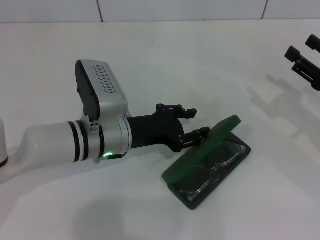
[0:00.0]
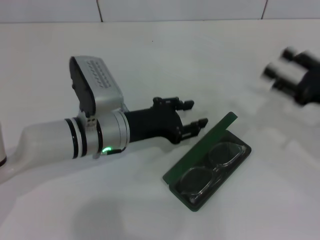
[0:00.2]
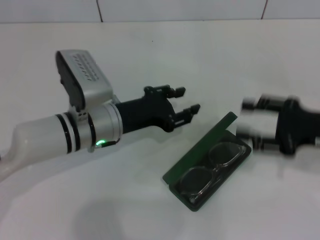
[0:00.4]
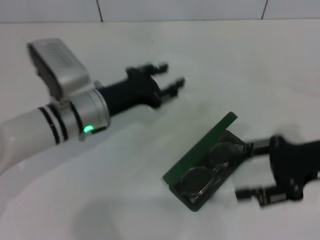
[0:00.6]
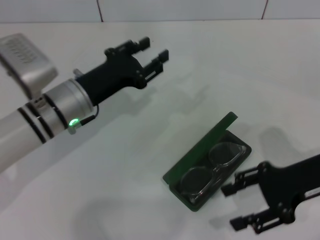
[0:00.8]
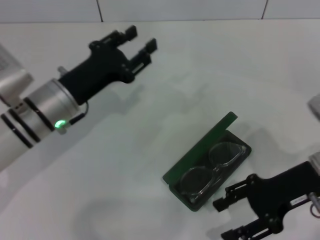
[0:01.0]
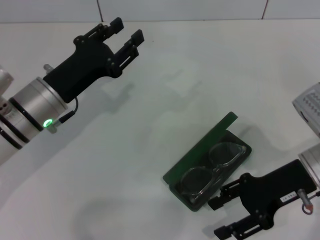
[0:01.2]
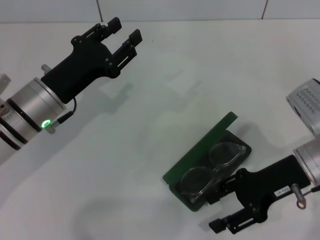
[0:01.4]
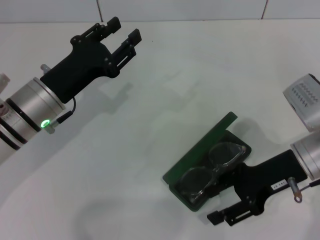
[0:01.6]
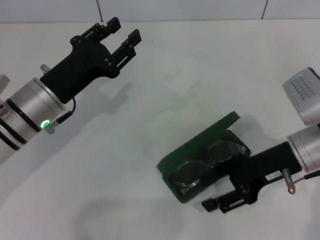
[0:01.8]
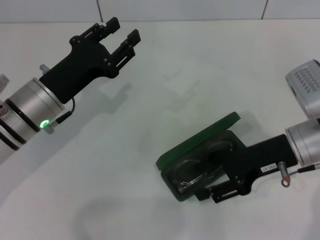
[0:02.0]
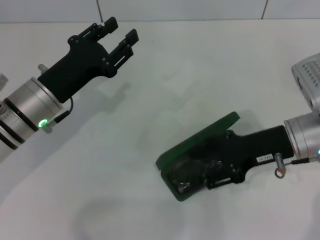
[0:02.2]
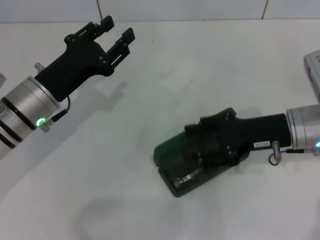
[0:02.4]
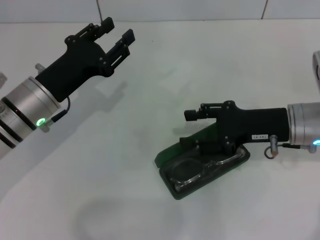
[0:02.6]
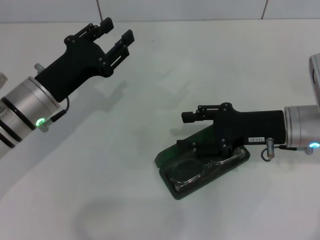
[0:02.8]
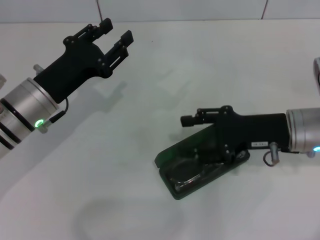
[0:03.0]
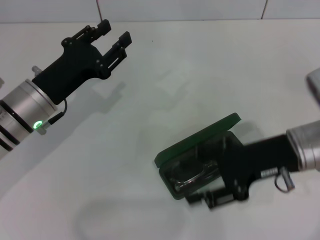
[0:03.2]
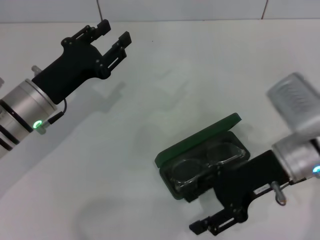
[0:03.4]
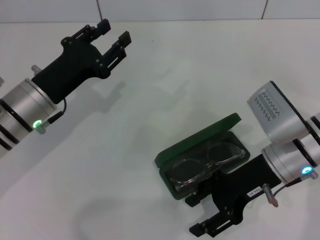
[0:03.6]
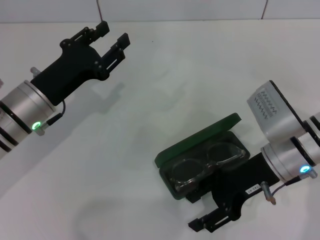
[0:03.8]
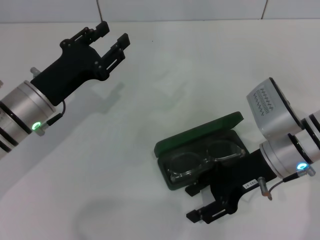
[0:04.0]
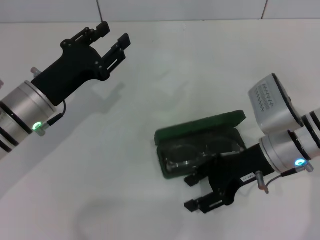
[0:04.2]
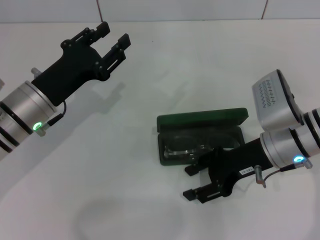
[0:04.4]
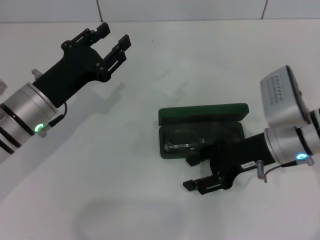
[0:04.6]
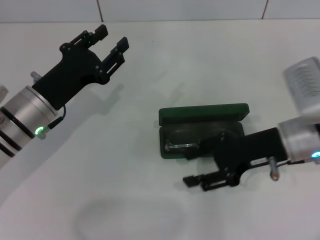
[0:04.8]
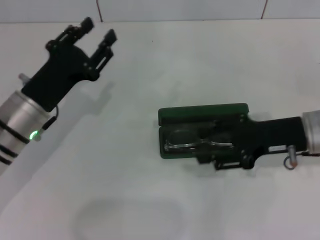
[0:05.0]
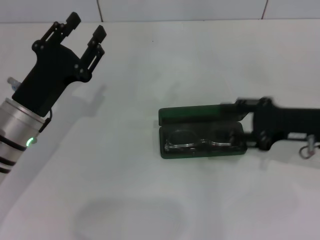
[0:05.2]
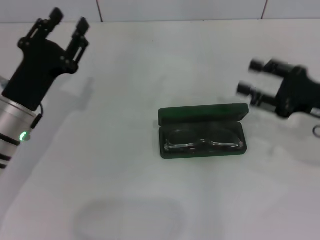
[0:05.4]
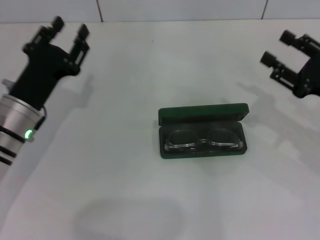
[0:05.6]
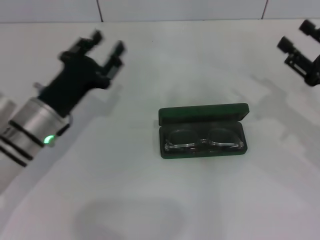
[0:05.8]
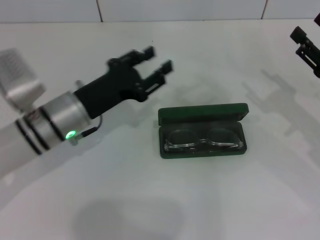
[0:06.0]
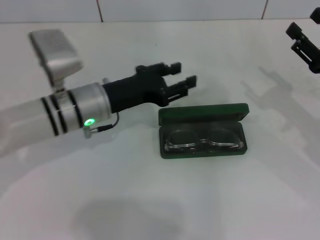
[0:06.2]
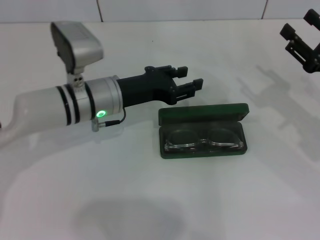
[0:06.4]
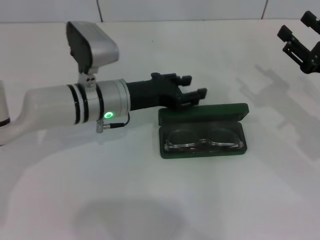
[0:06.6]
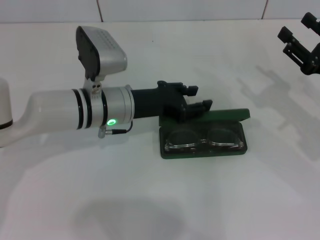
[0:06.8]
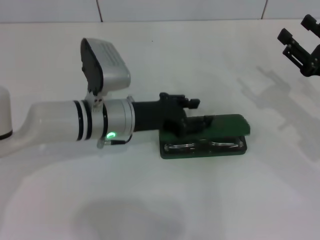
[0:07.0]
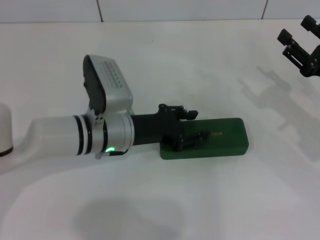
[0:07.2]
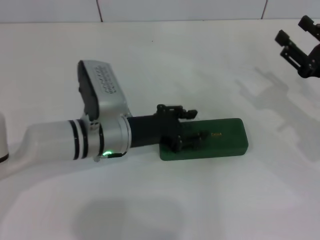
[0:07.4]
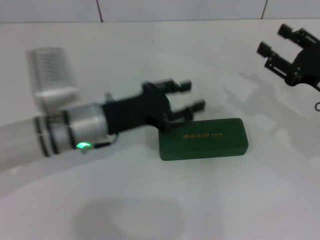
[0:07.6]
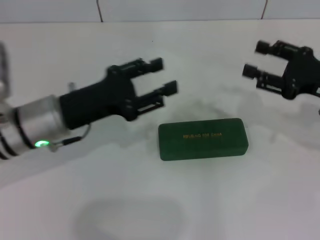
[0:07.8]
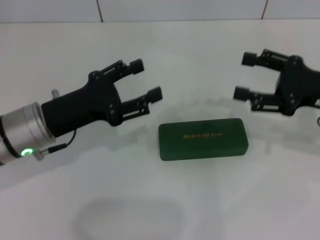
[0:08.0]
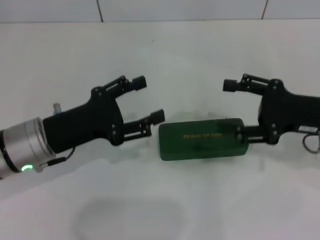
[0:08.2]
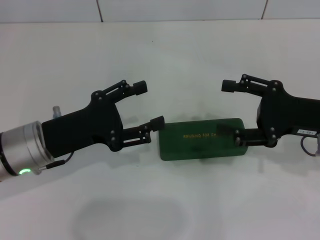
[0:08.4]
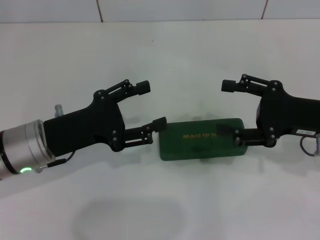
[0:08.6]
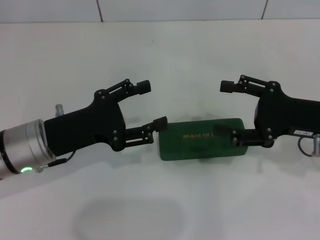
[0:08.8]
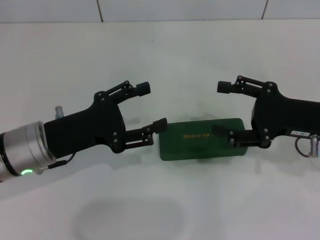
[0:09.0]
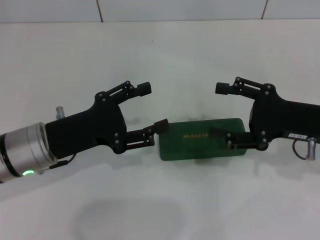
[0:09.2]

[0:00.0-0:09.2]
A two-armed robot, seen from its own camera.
Step, 0:00.0 to 0:07.0: Close the glasses case with your left hand.
0:00.0 to 0:01.6: Both grippers travel together to the left, roughly 10 cm.
0:04.6 to 0:06.2: The right gripper heads to the right, covering approximately 10 cm. The left gripper shifts approximately 5 cm to the right.
0:07.6 to 0:09.2: The left gripper moves to the left, about 5 cm, and opens up.

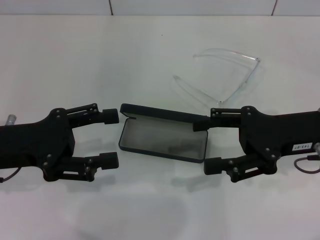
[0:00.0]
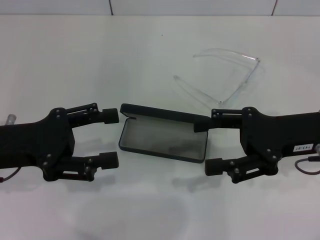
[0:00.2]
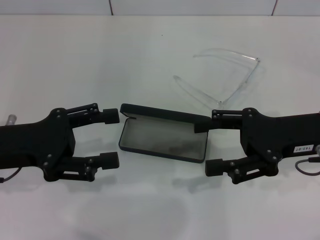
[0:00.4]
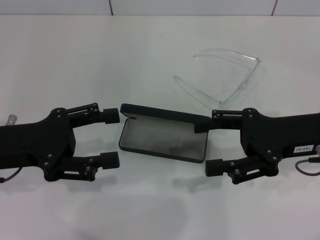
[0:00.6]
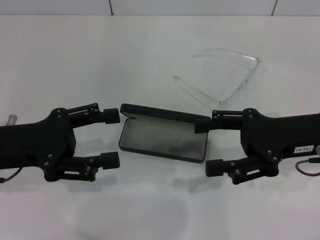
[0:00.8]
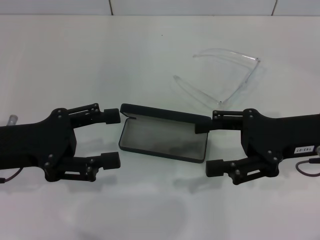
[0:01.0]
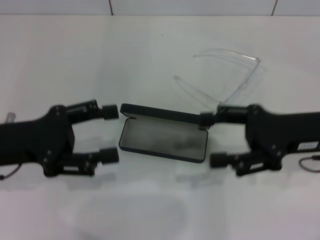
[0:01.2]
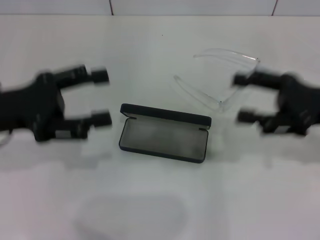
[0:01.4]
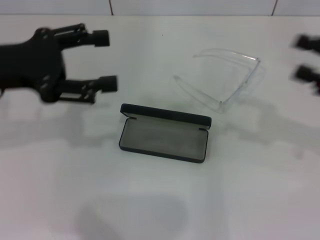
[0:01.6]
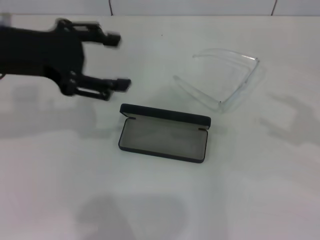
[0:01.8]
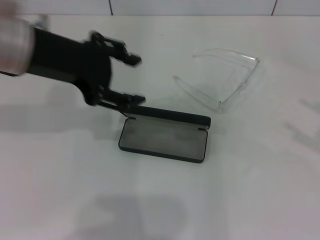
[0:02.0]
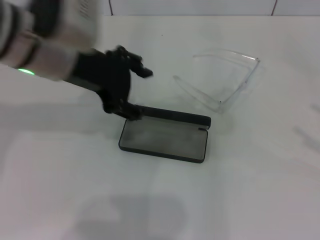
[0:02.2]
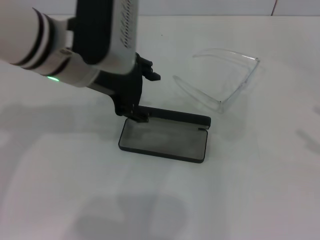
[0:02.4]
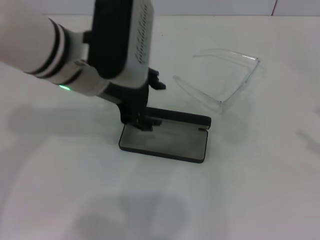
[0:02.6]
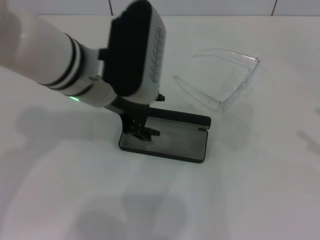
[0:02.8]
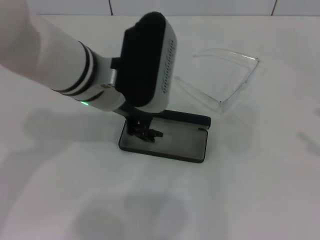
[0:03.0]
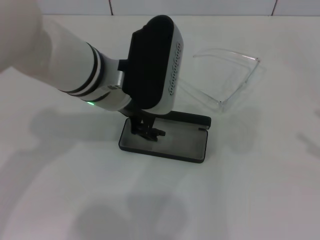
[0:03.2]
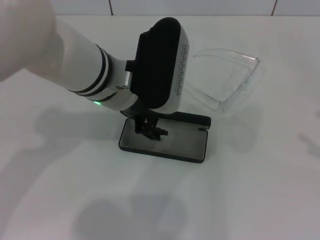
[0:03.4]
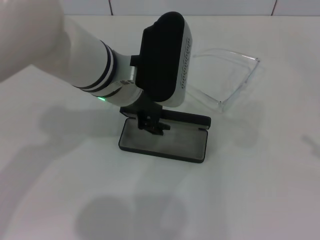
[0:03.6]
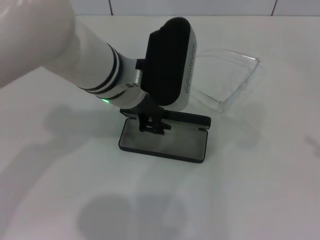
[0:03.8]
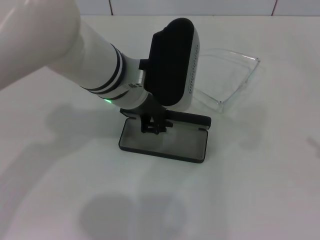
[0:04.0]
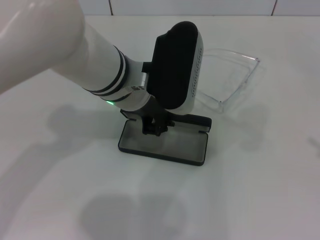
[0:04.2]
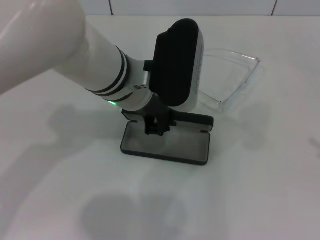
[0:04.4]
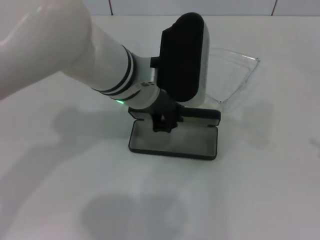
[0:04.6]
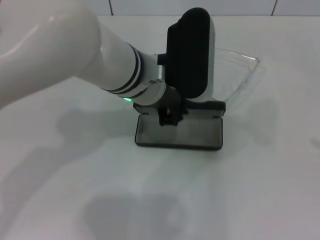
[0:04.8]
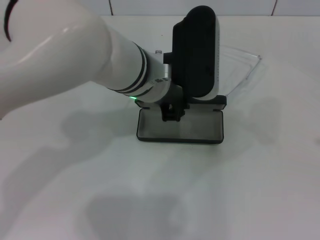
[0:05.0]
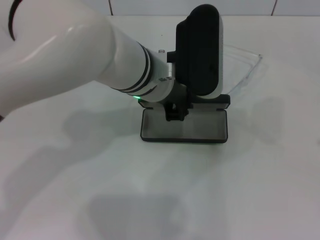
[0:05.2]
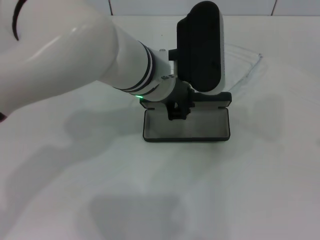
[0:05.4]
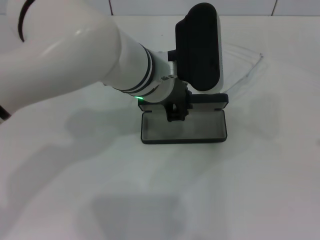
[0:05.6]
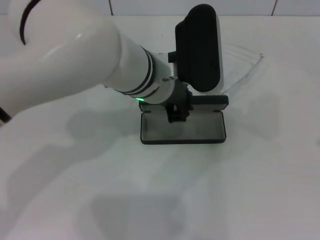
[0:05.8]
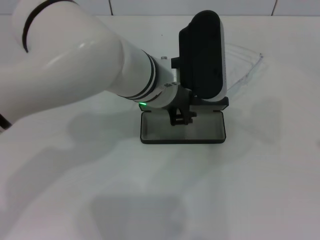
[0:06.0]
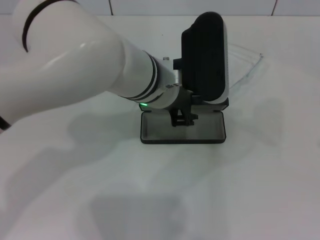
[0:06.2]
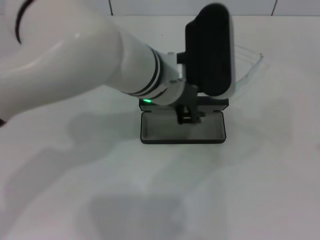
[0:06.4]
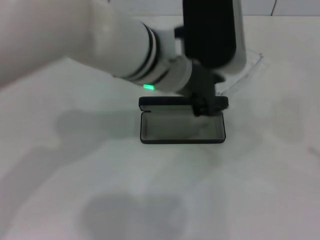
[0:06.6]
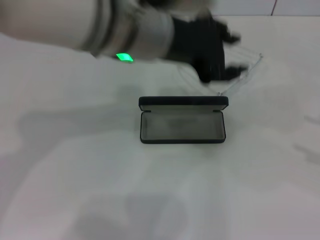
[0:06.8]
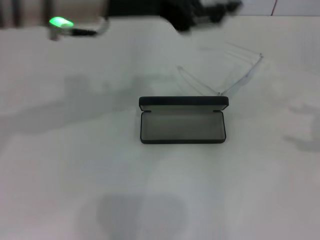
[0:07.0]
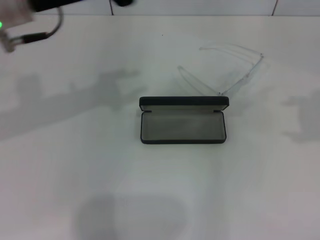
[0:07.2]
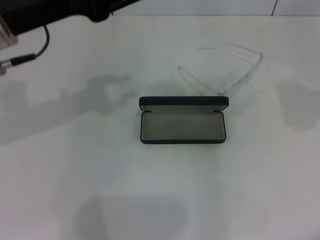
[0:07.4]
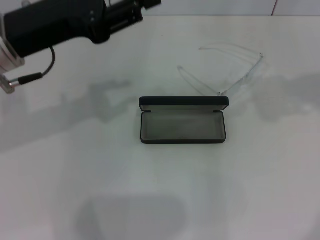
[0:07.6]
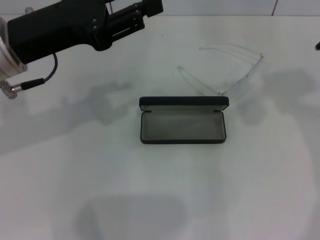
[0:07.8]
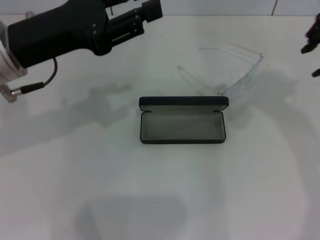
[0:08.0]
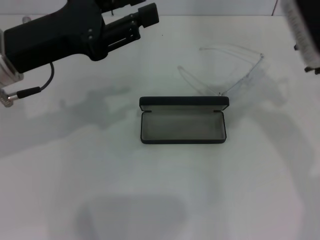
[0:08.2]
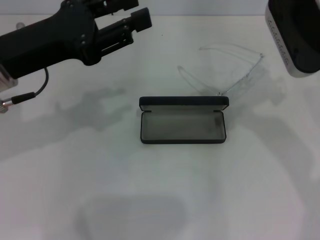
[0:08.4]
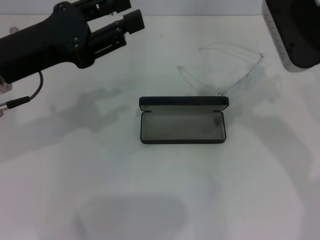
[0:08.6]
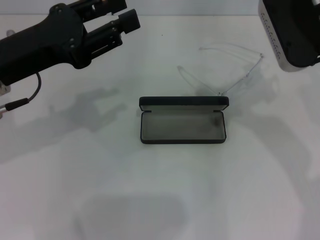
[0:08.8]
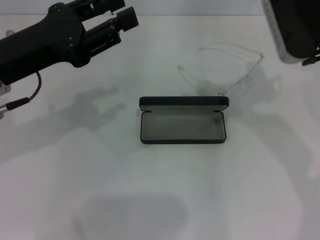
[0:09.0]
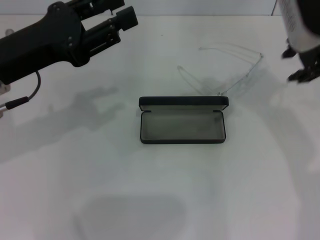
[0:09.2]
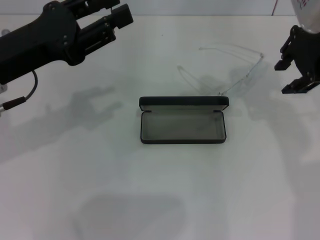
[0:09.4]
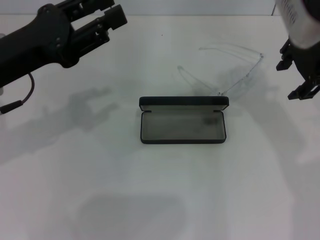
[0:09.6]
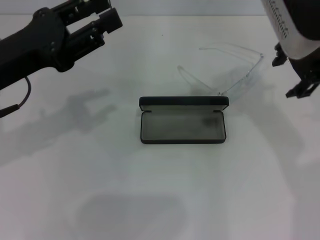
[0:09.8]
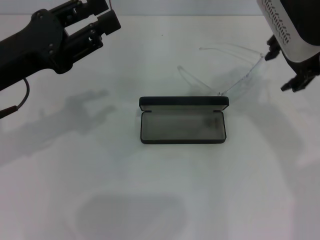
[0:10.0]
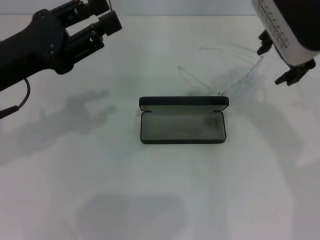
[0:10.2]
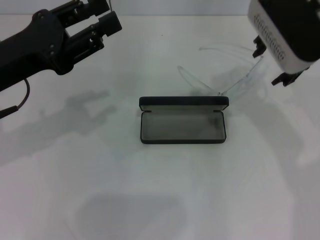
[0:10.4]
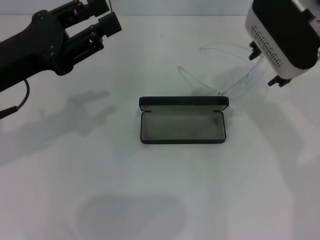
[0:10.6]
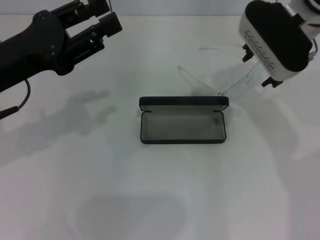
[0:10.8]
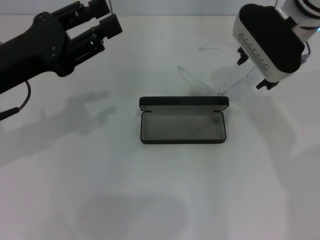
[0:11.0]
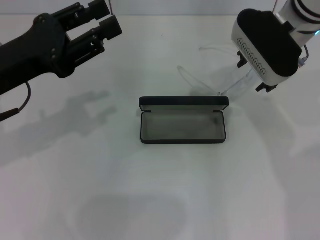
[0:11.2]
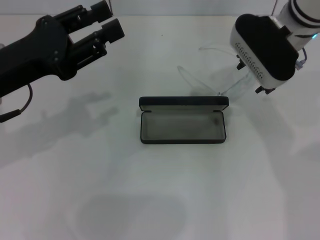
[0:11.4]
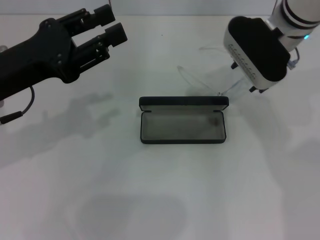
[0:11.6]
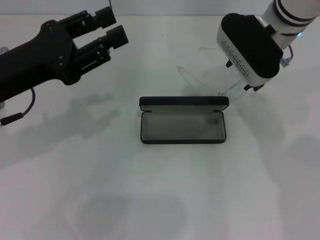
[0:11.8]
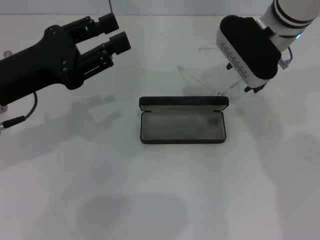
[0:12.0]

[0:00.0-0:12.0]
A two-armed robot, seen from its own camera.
Step, 0:00.0 to 0:04.8: Grab the glasses case with your left hand.
Step, 0:05.0 to 0:06.4: Place the glasses case in the center of the table with your left hand.
0:00.0 to 0:01.6: The right gripper shifts about 10 cm to the right. The left gripper goes about 10 cm upward.
0:01.6 to 0:03.0: The right gripper shifts some 15 cm to the right and backward, while the left gripper goes roughly 15 cm to the right.
0:03.0 to 0:04.4: The left gripper closes up.
0:06.0 to 0:07.6: The left gripper shifts roughly 20 cm to the left. Meanwhile the right gripper goes roughly 30 cm upward, forward and to the left.
0:07.6 to 0:09.0: The right gripper shifts some 15 cm to the left and downward.
0:10.4 to 0:12.0: The right gripper shifts approximately 5 cm downward.

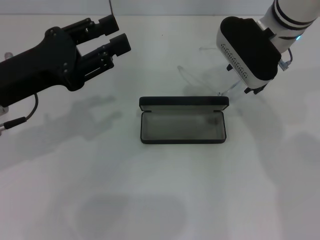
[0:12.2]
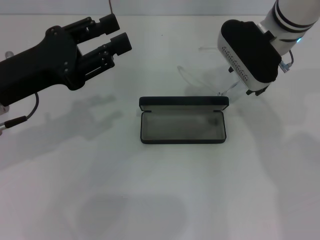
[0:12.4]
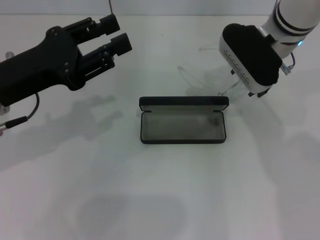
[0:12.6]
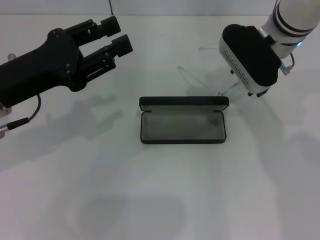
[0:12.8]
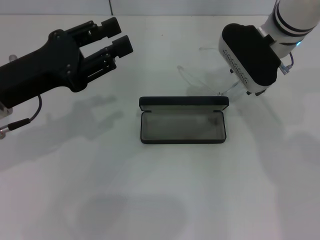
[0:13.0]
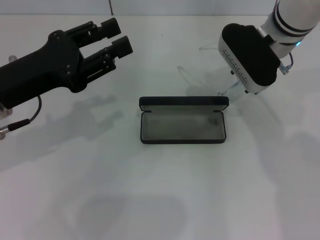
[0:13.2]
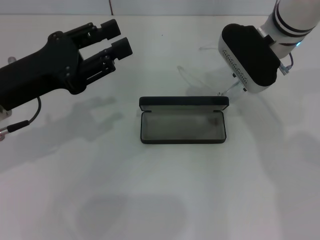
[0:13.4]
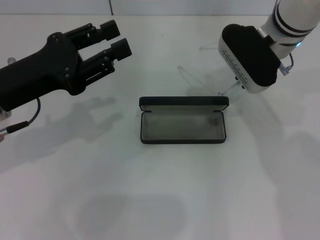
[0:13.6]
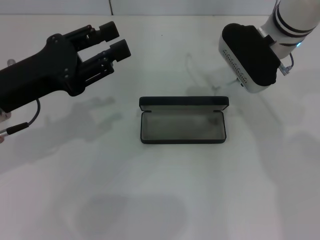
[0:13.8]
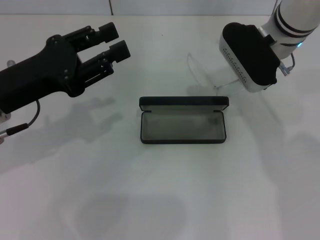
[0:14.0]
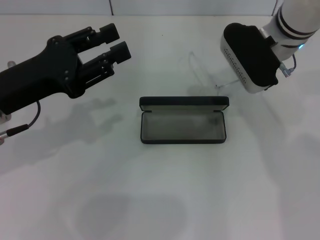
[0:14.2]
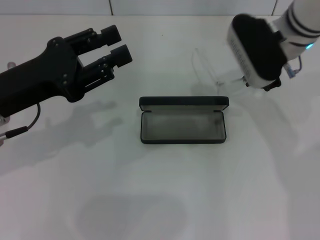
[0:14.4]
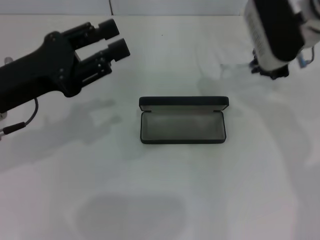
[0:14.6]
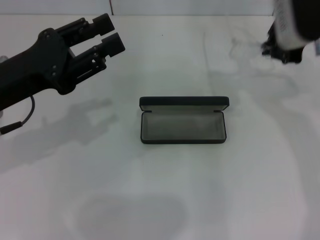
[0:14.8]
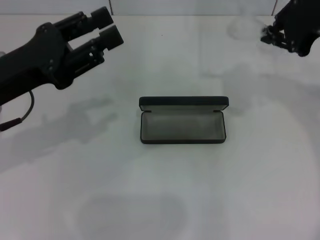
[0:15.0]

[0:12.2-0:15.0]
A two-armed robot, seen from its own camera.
Step, 0:12.2 to 0:14.2: Grab the eyeglass frame with your right hand.
0:12.2 to 0:13.6: Both grippers stay about where they are.
0:13.6 to 0:15.0: The right gripper travels to the right, upward and backward by approximately 15 cm, and closes.
